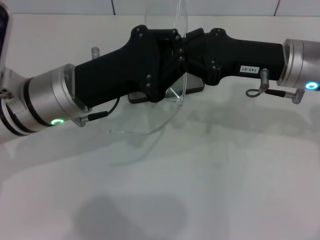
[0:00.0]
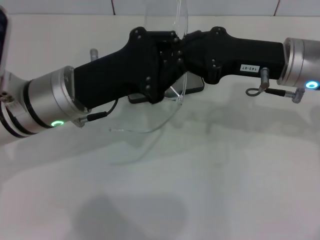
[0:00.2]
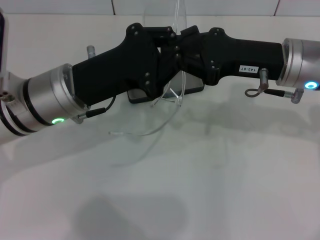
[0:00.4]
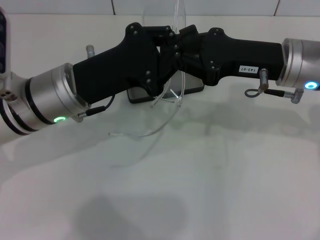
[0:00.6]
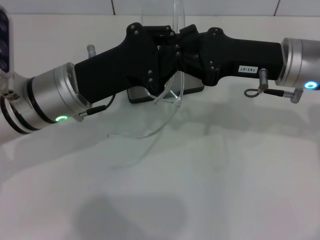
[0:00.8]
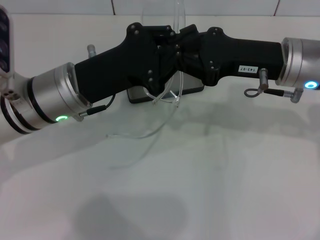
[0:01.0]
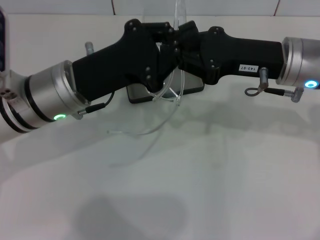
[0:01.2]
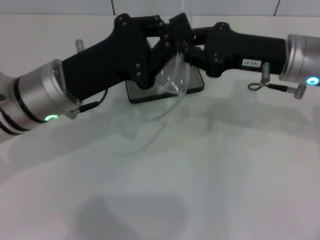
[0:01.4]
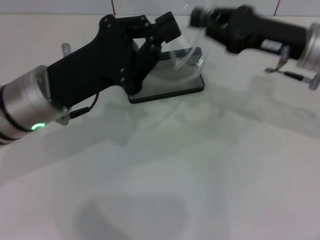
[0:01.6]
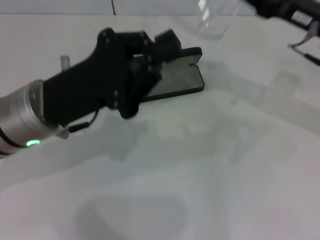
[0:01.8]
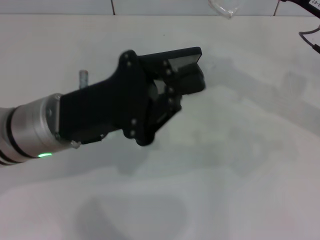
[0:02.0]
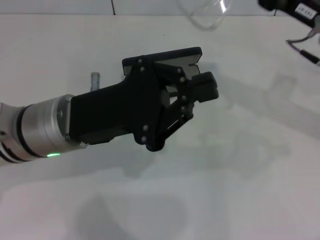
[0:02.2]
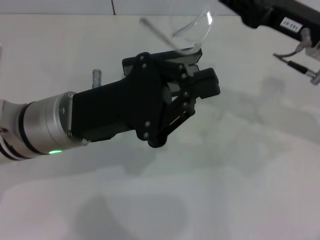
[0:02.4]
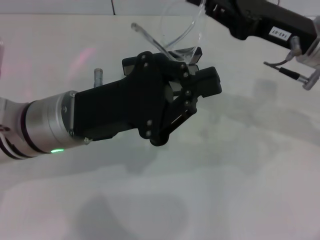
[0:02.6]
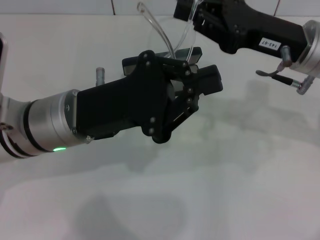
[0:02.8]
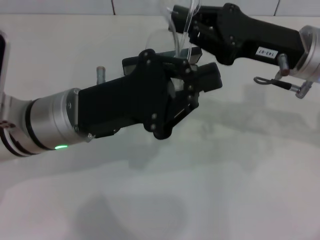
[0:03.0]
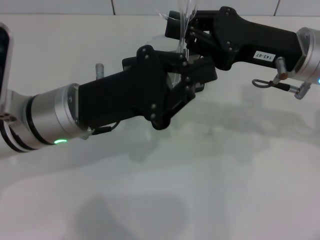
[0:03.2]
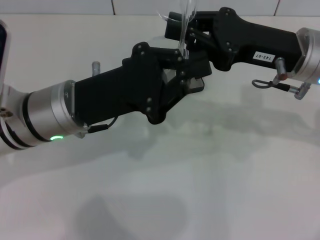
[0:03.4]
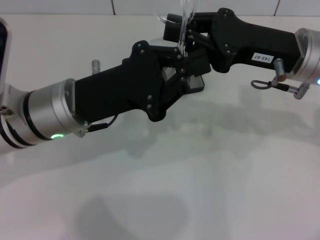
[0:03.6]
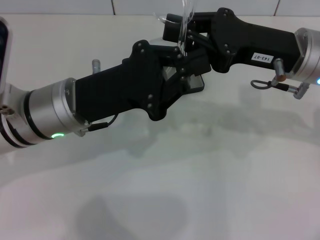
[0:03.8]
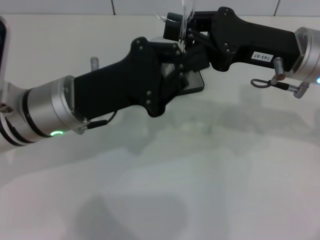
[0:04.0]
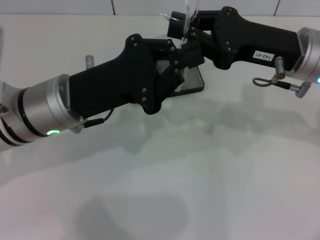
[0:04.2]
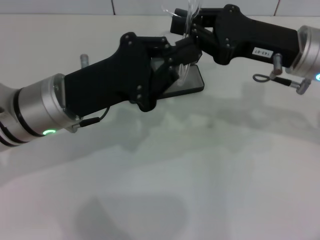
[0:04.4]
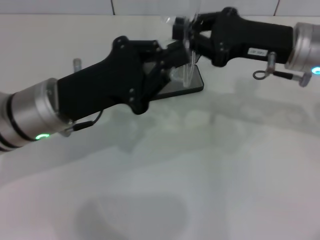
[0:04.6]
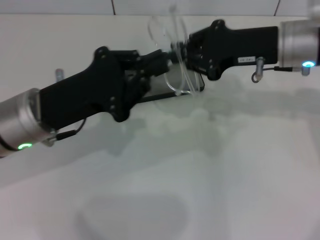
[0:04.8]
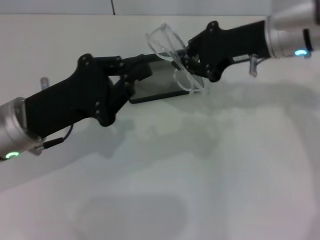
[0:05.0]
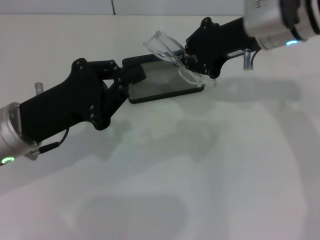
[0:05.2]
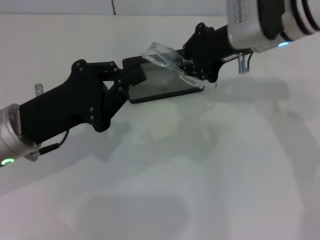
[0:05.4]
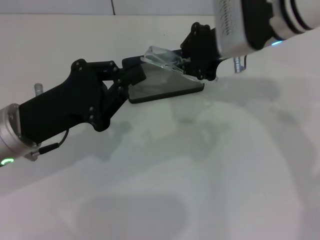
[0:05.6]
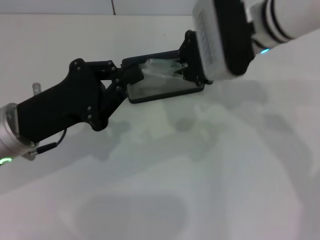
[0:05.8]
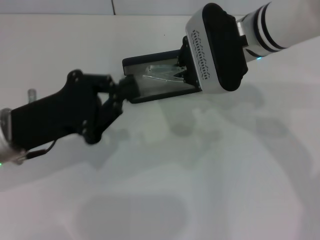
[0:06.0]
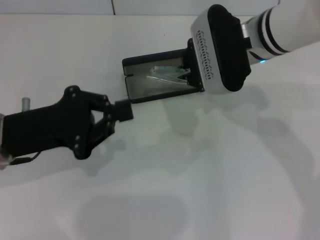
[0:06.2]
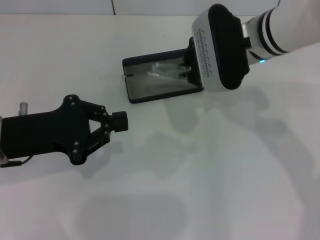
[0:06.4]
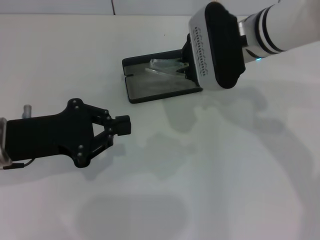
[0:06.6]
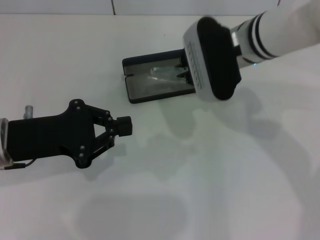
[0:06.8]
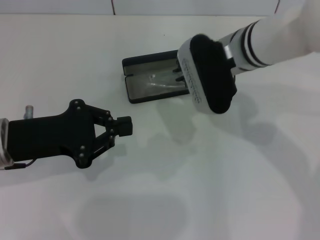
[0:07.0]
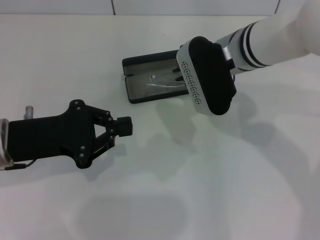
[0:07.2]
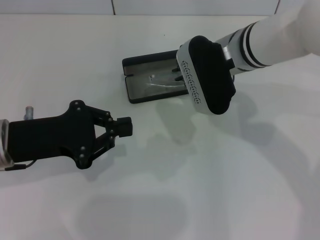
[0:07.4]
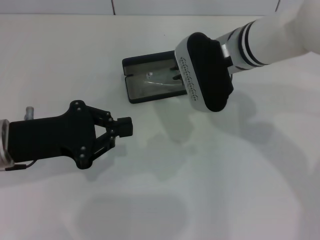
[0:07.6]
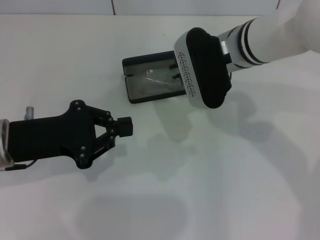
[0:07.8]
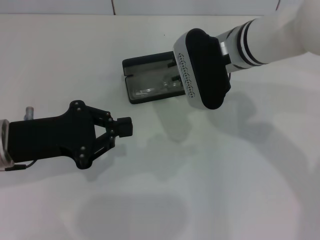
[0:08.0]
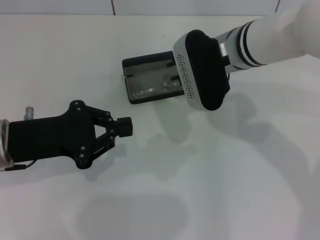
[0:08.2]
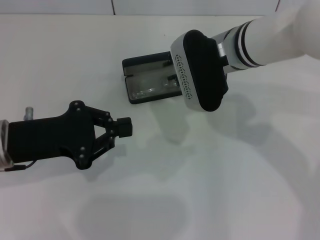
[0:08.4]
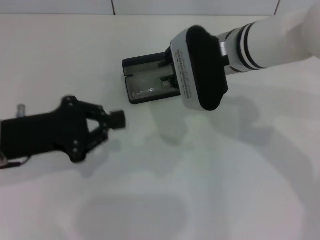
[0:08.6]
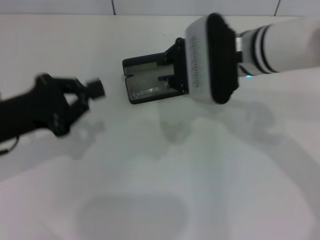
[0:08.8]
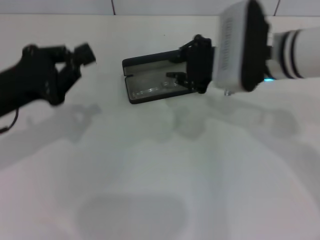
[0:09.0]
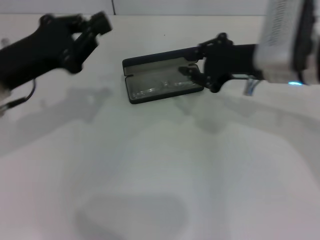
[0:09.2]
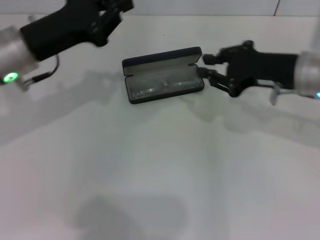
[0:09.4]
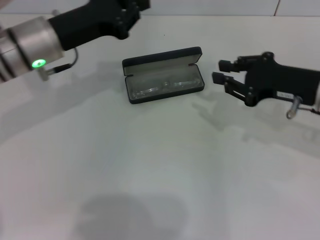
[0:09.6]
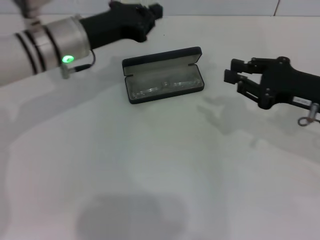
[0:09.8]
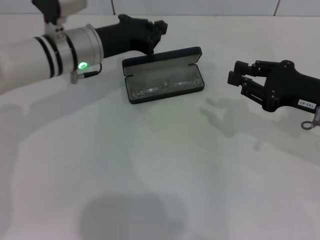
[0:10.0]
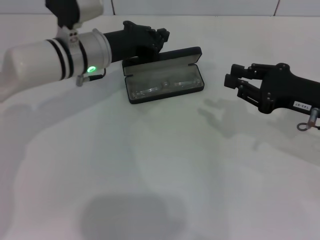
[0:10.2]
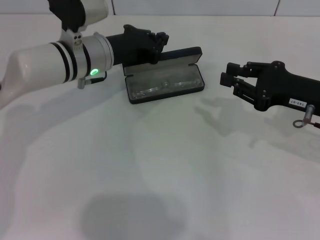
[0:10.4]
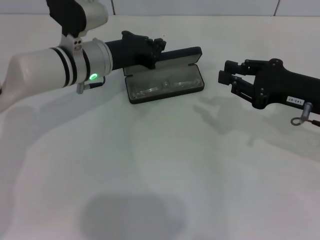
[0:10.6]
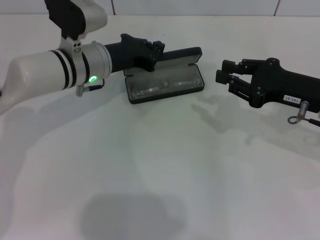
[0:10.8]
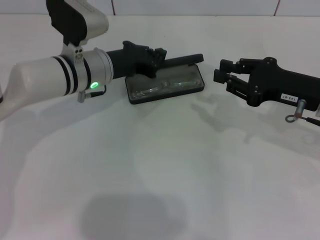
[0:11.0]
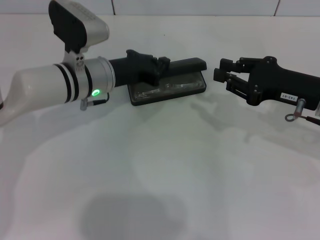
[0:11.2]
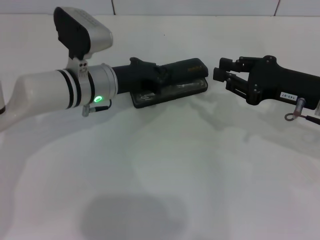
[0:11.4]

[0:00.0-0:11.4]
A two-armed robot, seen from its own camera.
Step, 0:00.0 to 0:04.4: Fold the frame with your left hand.
Step, 0:04.6 to 0:08.8: Put the glasses into the case with your right hand.
0:00.0 to 0:01.4: There are only small adjustments of the grippers.
0:04.2 to 0:05.6: The left gripper is displaced to the left by some 5 cm. The right gripper moves to the left and forward, approximately 10 cm.
0:05.6 to 0:07.2: The right gripper moves approximately 5 cm.
0:07.2 to 0:08.6: The grippers move only a little.
0:08.6 to 0:10.0: The left gripper moves forward and to the right, approximately 20 cm, while the right gripper travels to the right and backward by about 20 cm.
0:10.0 to 0:11.4: The left gripper shifts by about 5 cm.

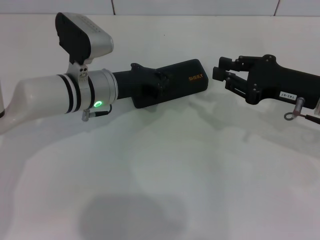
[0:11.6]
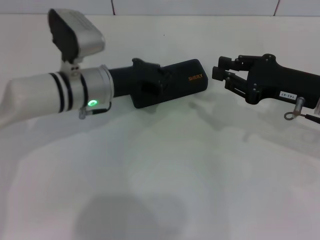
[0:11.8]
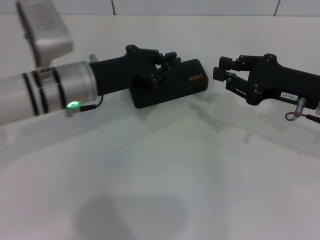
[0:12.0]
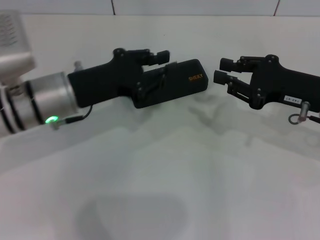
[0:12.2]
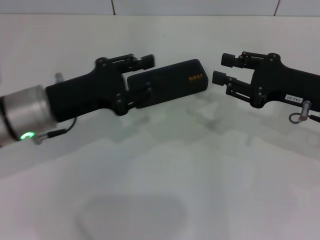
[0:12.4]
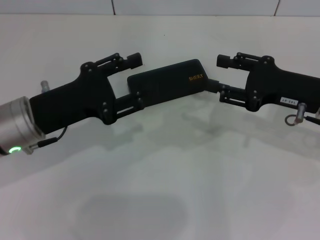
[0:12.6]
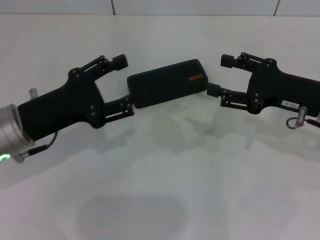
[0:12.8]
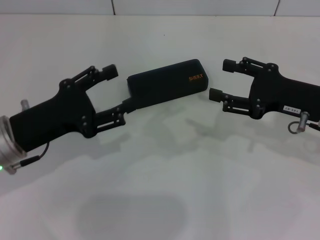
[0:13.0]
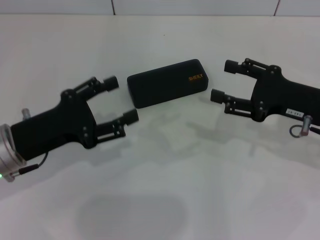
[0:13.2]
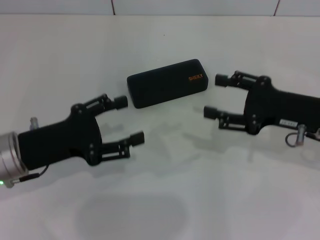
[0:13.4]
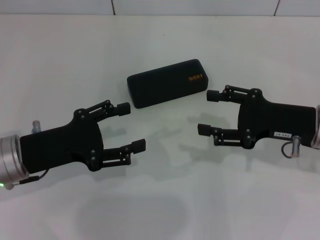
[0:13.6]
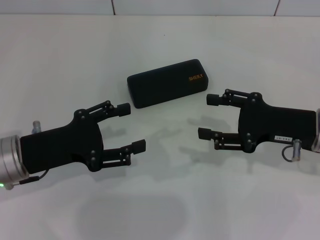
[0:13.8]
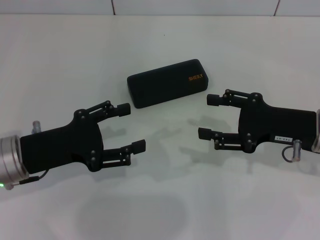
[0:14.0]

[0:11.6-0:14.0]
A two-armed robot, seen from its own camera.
0:11.6 to 0:12.8: The right gripper opens up. Meanwhile the left gripper moves backward and to the left, roughly 15 cm, and opens up.
